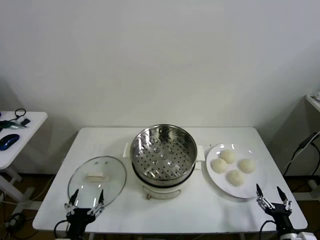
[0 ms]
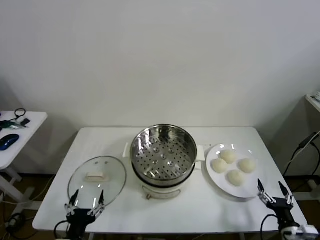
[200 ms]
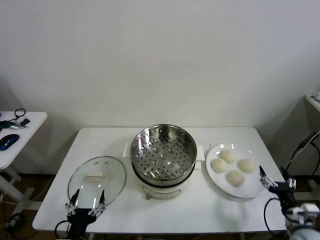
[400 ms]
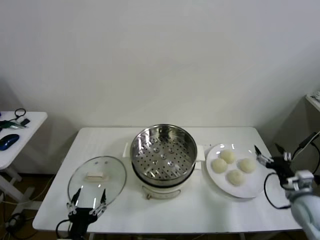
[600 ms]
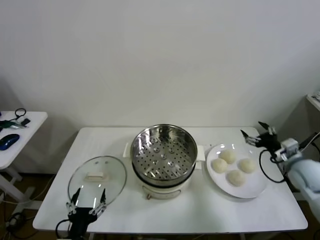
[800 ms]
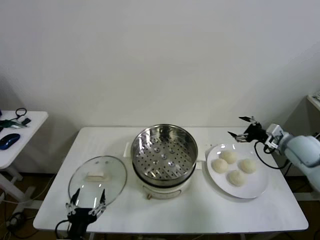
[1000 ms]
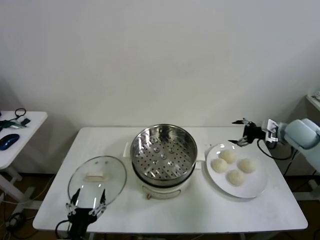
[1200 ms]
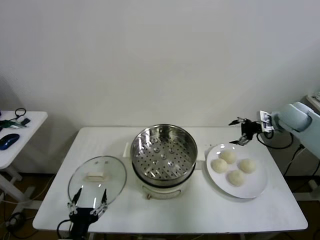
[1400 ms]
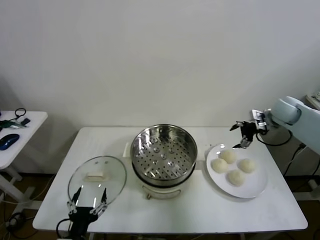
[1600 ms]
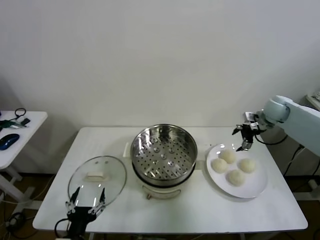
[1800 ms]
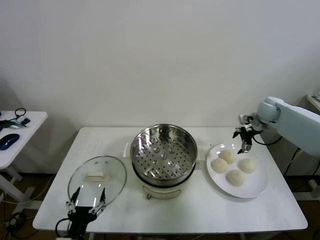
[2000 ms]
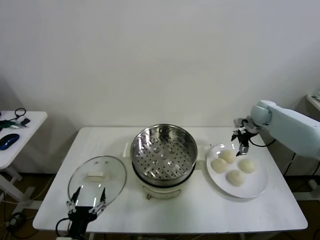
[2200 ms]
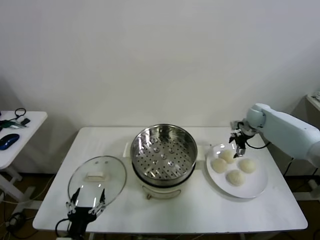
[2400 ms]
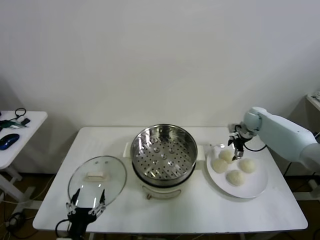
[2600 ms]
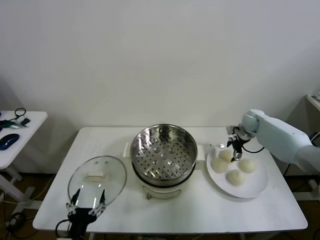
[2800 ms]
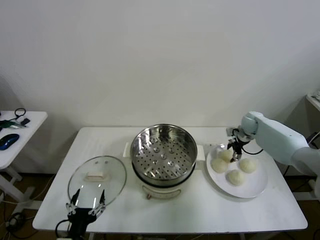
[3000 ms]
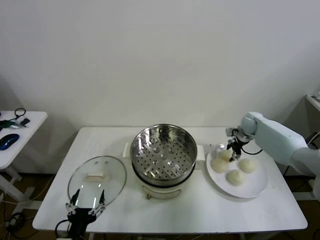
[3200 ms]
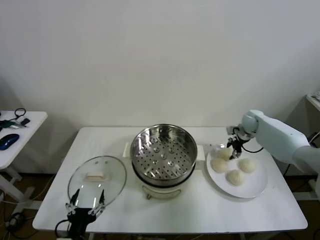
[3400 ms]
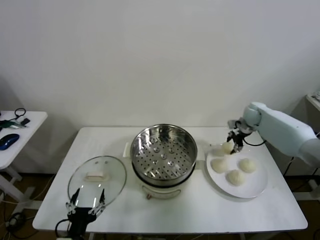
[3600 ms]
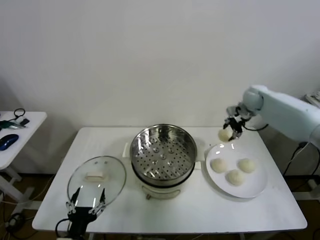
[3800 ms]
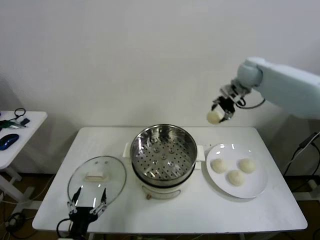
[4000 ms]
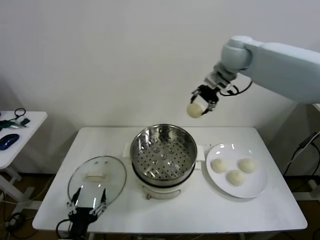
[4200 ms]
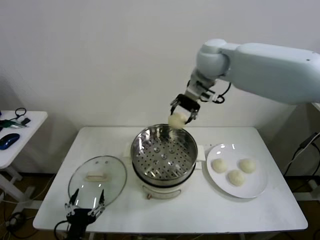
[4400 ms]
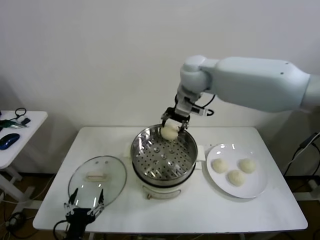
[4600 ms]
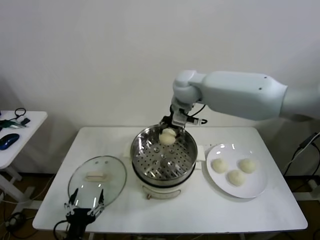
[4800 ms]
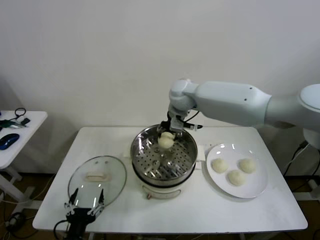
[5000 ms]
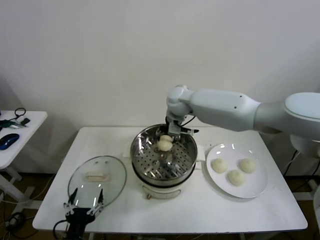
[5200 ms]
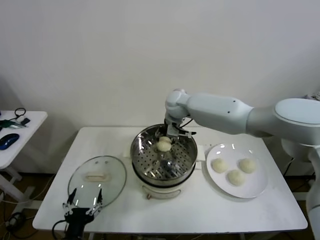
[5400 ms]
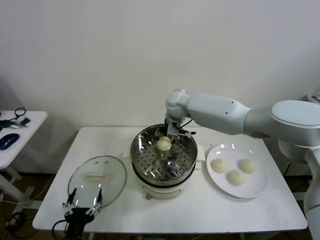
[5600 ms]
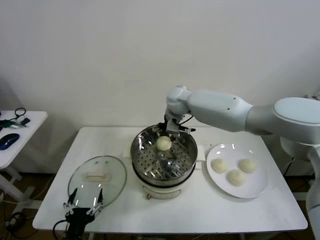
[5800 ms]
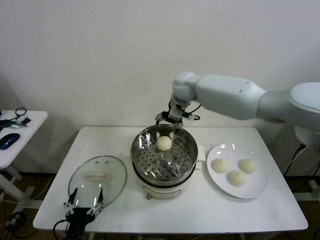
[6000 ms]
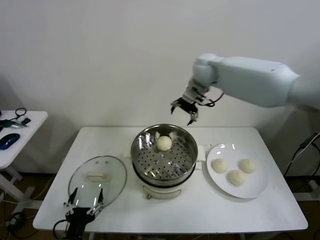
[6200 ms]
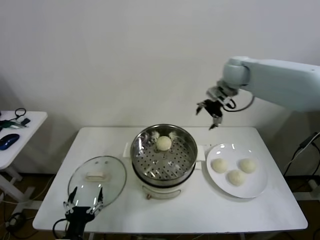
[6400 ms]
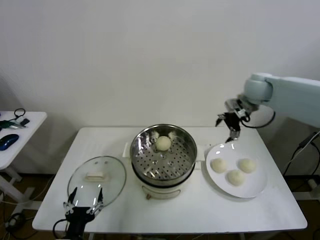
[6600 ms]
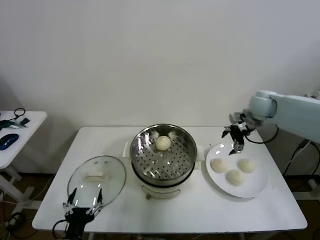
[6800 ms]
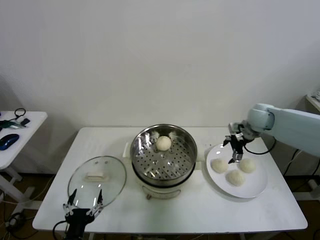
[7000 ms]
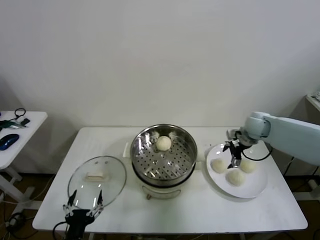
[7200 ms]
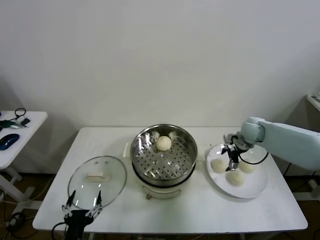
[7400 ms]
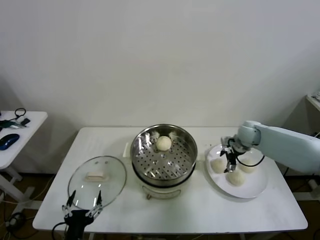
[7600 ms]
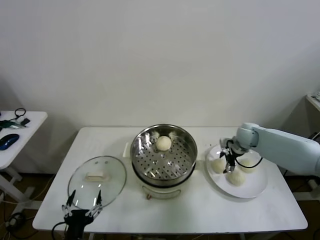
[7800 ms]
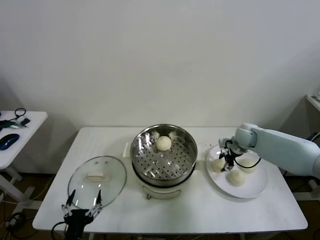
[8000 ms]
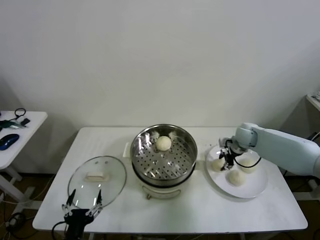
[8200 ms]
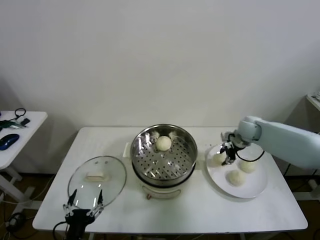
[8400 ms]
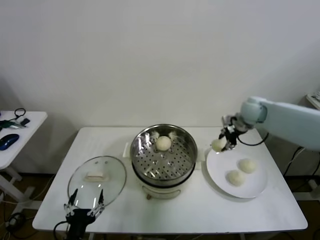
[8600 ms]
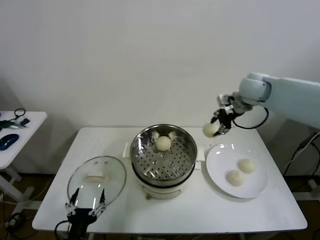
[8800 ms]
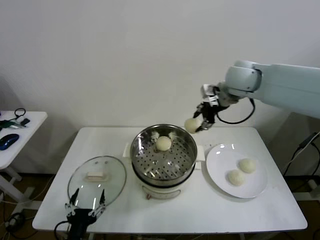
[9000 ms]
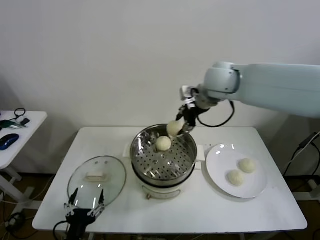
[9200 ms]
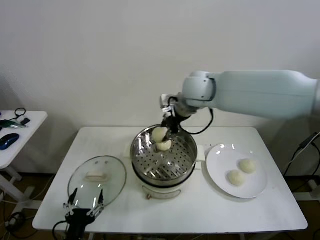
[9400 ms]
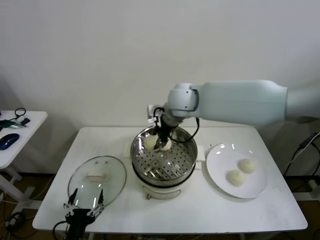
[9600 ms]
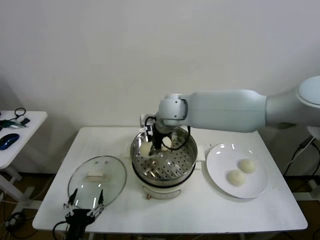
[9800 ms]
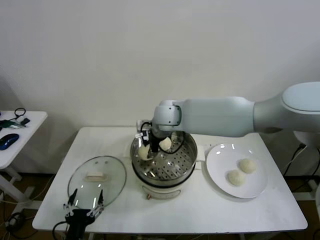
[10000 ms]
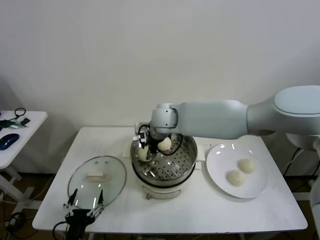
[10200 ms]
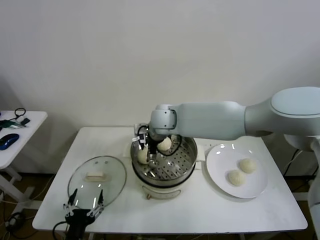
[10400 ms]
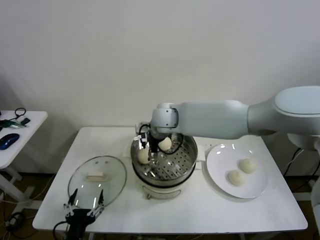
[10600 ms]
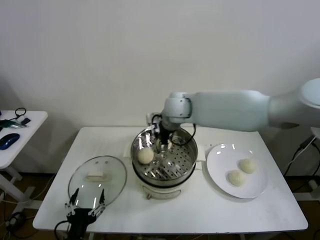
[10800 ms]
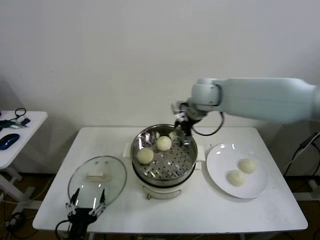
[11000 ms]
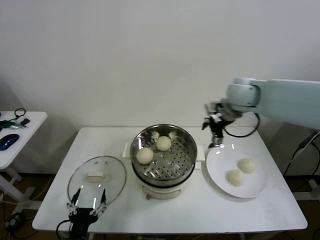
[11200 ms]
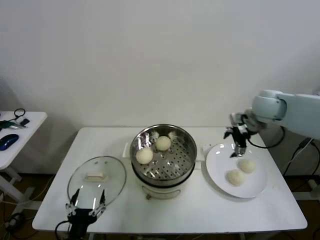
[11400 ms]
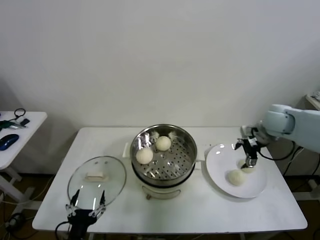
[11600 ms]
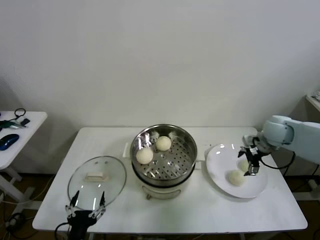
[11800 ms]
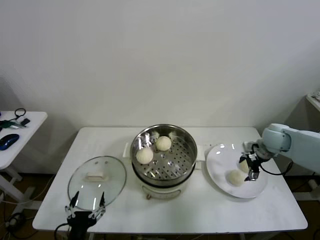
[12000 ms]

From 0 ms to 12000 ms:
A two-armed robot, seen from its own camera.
Step, from 0 ms to 3200 ms: Grasp the baozi in the plate with right gripper.
Step, from 3400 ms to 5600 ms: Place the baozi on the steamer with right gripper.
Step, from 5800 ms to 8000 ms: Grasp the baozi in the plate with right gripper.
Step, from 8200 ms to 10200 ms: Place the baozi on the steamer with right gripper.
From 1600 ms to 3000 ms: The right gripper shifts about 15 cm downward and forward, and closes up.
From 3000 ms to 4400 ms: The right gripper goes approximately 40 cm upward and to the left.
From 4400 ms to 6000 ms: The right gripper heads downward and forward, covering some 10 cm, and opens.
From 6000 ms to 7600 ms: The right gripper heads to the right and downward, covering some 30 cm.
From 7600 ms to 9000 ms: The right gripper goes approximately 30 cm upward and to the left, and closes its fingers.
From 9000 ms to 10400 ms: The right gripper heads to the left and downward, covering some 25 cm, and opens.
From 10400 ms to 12000 ms: The right gripper moves to the right, approximately 40 cm.

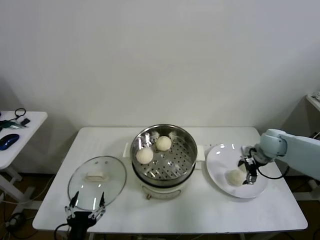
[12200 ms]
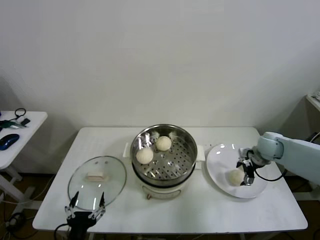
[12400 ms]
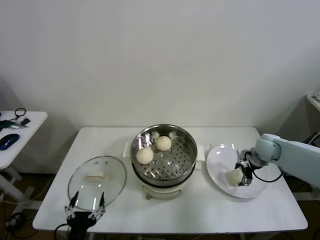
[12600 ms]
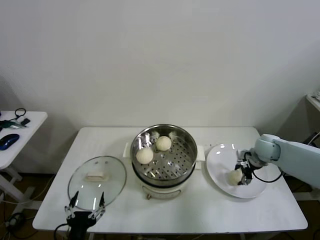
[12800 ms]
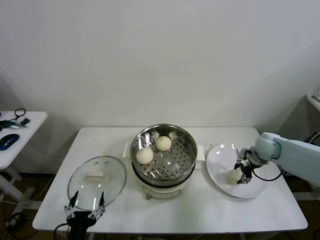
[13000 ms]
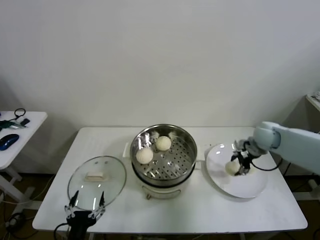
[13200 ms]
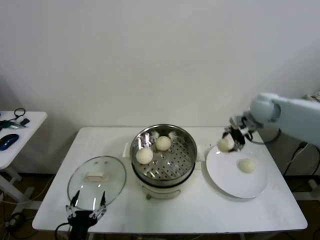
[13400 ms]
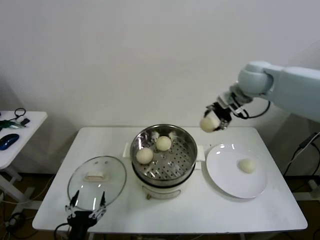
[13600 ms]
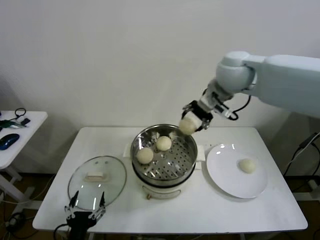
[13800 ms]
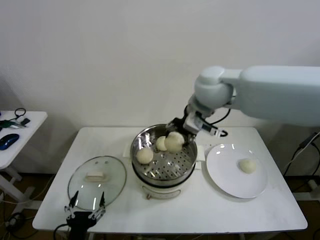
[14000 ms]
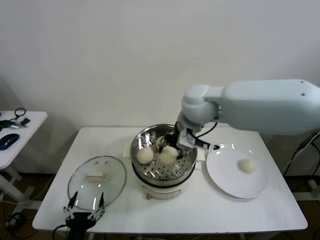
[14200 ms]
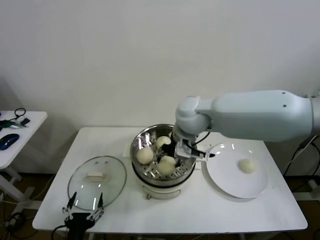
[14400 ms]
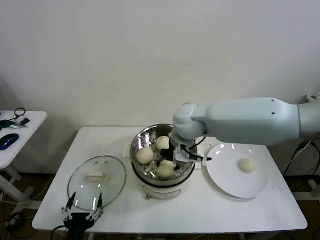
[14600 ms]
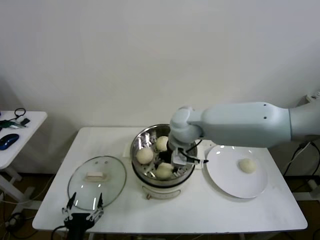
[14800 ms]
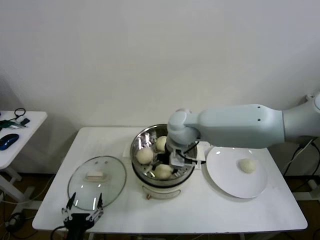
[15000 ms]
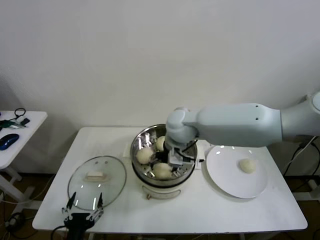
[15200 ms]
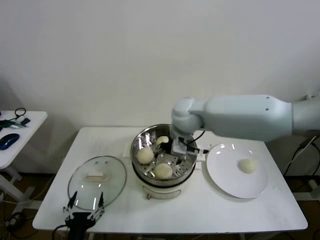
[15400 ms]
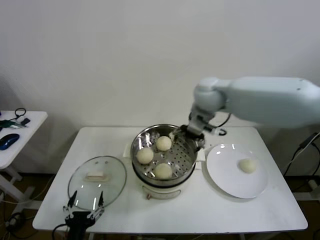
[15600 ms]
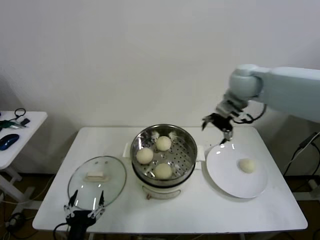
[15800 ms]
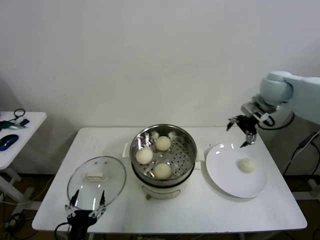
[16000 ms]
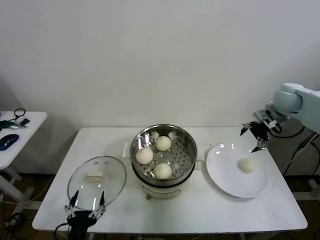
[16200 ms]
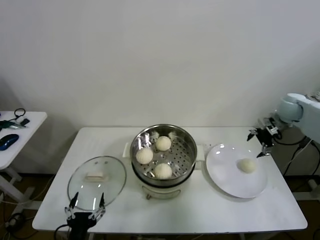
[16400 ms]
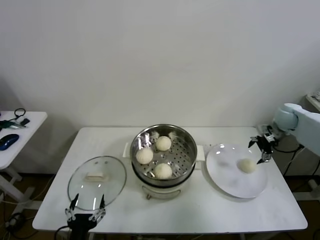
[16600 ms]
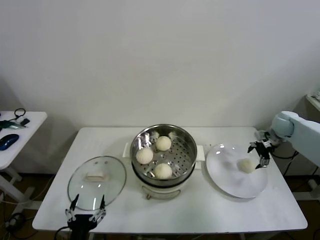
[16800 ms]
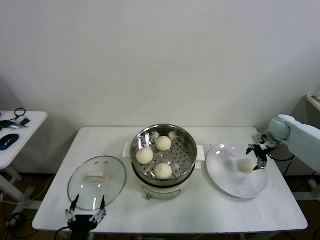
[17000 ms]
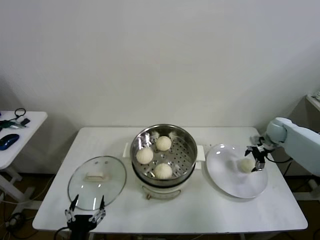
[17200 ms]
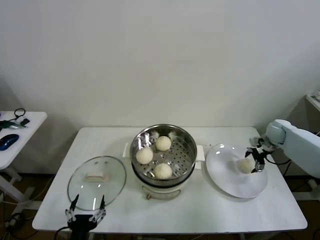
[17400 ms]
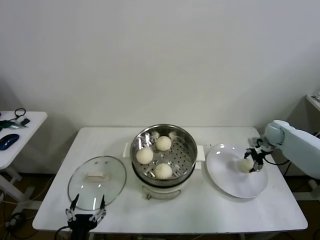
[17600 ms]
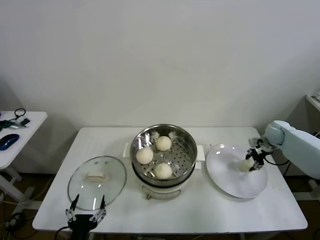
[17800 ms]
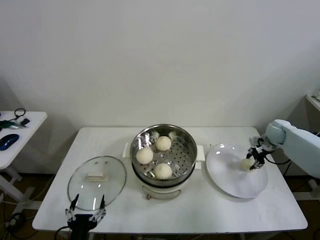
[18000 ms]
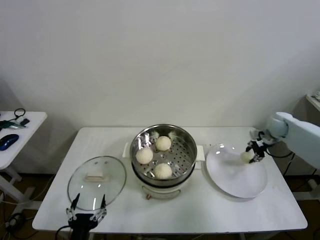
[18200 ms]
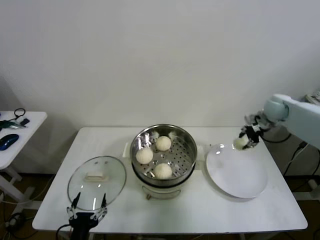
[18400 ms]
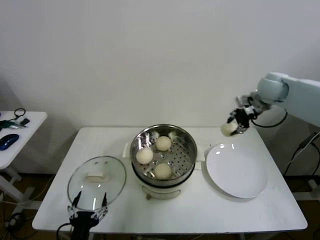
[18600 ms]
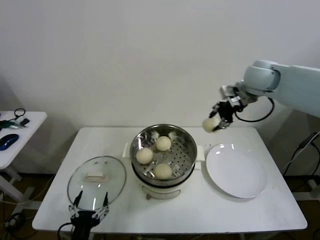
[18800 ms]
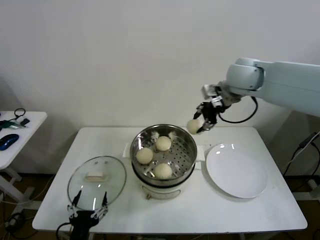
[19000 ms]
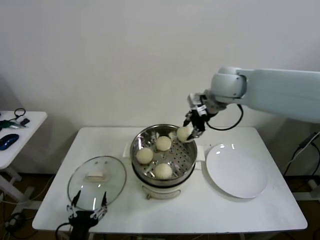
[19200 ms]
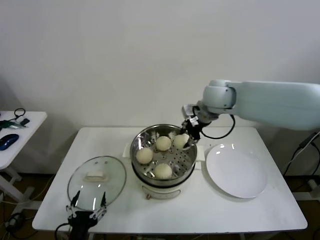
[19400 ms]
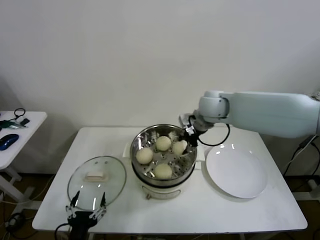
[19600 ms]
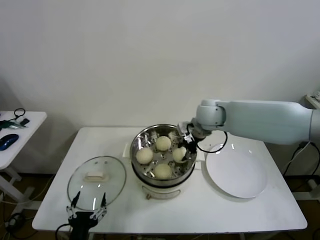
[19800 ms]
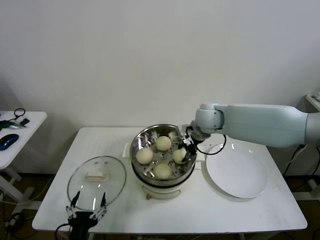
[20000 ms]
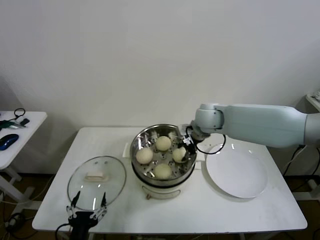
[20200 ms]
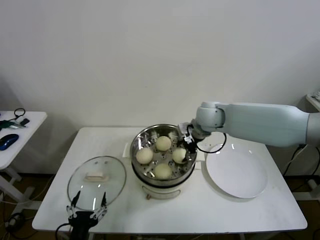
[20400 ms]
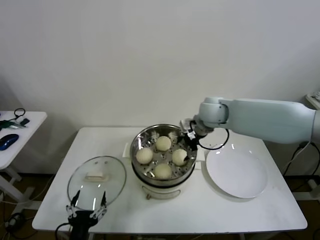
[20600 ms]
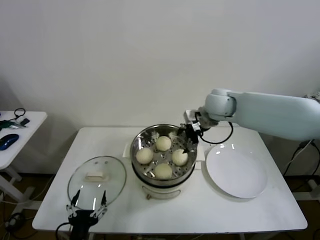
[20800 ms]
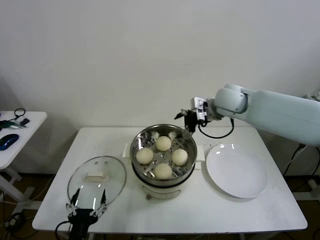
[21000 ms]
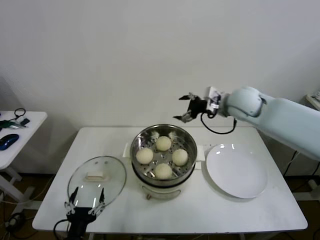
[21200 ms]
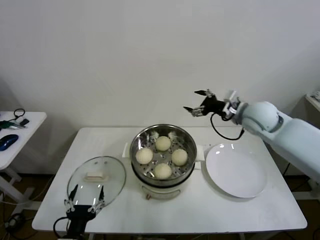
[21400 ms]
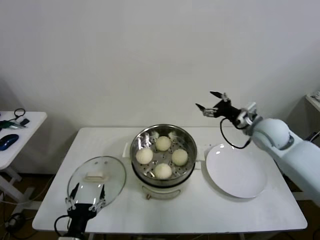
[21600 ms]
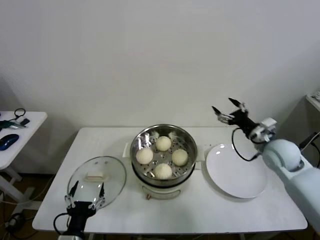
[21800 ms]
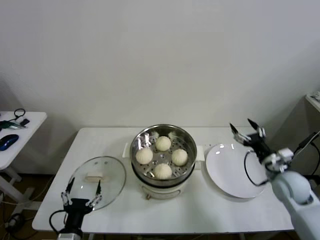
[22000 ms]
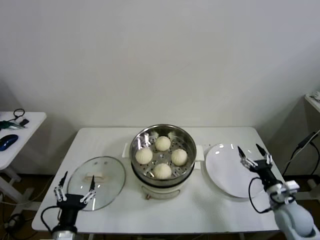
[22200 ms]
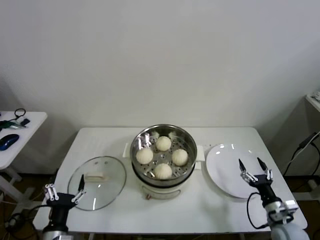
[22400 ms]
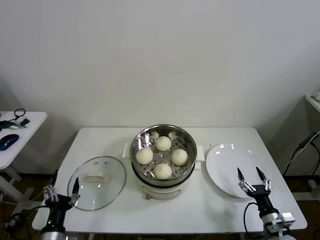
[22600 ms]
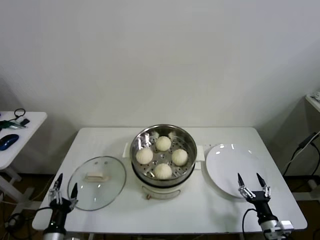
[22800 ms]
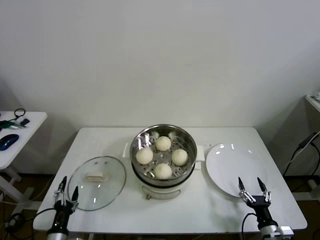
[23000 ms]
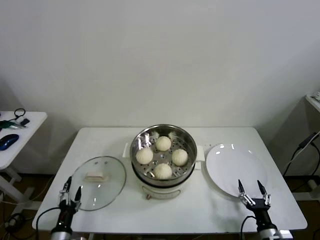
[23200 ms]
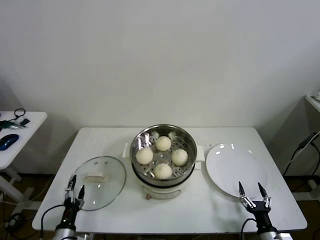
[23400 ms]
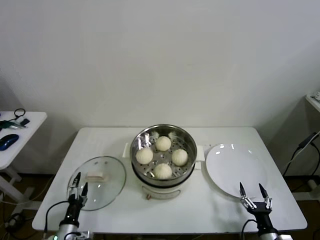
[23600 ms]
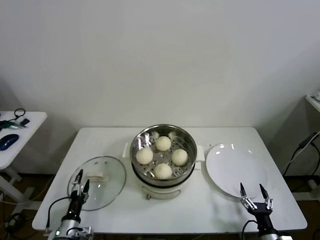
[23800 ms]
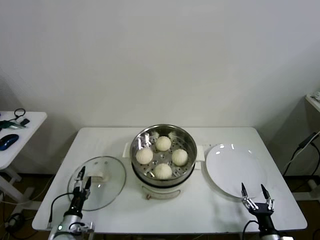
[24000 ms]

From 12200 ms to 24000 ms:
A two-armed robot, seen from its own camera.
Step, from 13000 ms to 14800 ms: Place the baozi on the steamer with right gripper.
Step, from 15200 ms to 17600 ms: Grasp the baozi in the plate with right gripper.
Step, from 17800 ms to 20400 ms: Place the baozi on the steamer with right gripper.
From 12200 ms to 13600 ms: The right gripper shifts some 30 cm upward and to the left, and closes.
From 13600 ms to 15200 ms: The right gripper is displaced to the left and downward by roughly 25 cm, and opens up.
From 15200 ms to 16600 ms: The right gripper moves to the right, some 40 cm.
From 16600 ms to 18200 ms: The right gripper closes up.
From 18200 ms to 19600 ms: The right gripper goes some 30 cm to the left and upward.
From 19600 ms to 21000 ms: The right gripper changes place by approximately 5 cm, and opens up.
From 21000 ms to 22600 ms: The right gripper travels downward, backward and to the right by approximately 50 cm. The left gripper heads to the left, covering approximately 10 cm.
From 22600 ms to 24000 ms: The right gripper travels backward by about 5 cm. The left gripper heads downward and forward, covering some 15 cm.
